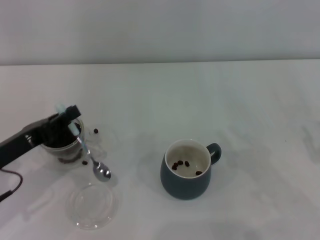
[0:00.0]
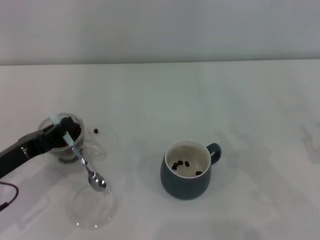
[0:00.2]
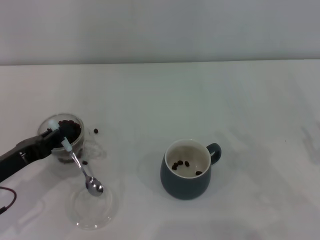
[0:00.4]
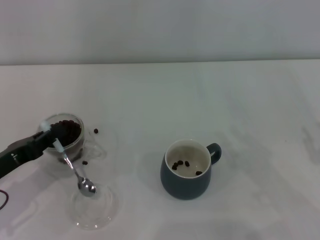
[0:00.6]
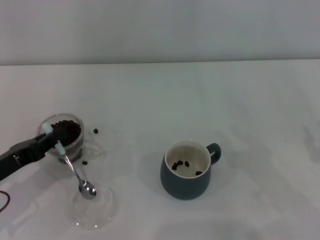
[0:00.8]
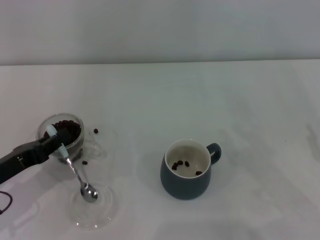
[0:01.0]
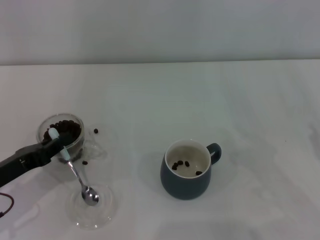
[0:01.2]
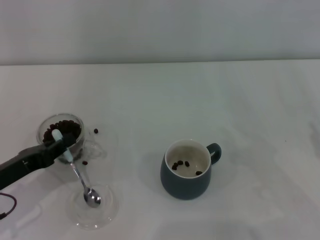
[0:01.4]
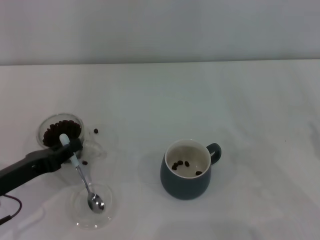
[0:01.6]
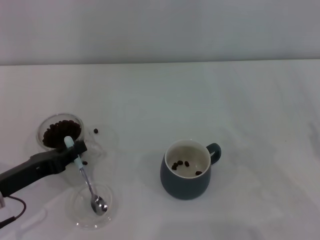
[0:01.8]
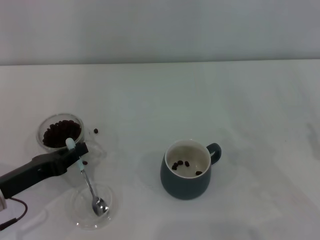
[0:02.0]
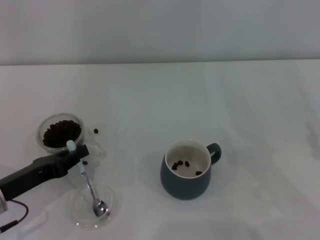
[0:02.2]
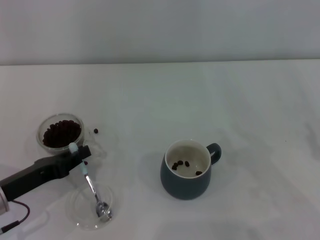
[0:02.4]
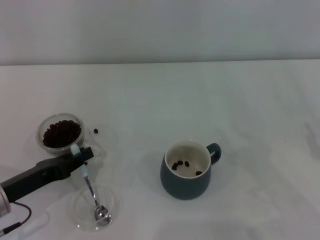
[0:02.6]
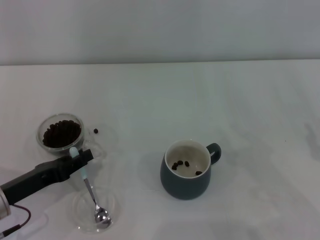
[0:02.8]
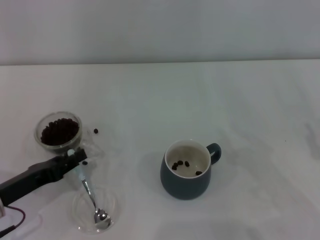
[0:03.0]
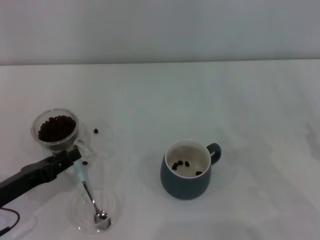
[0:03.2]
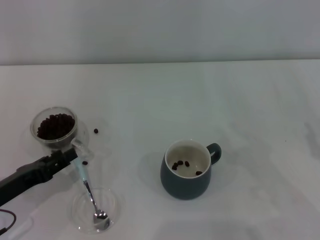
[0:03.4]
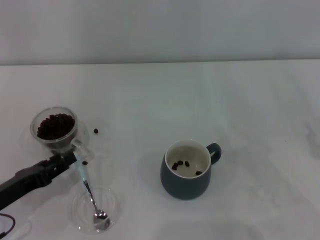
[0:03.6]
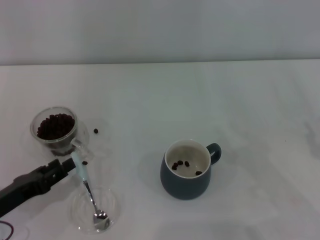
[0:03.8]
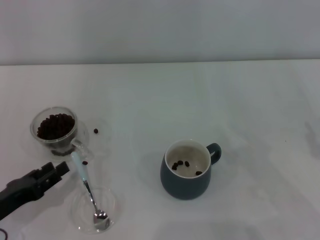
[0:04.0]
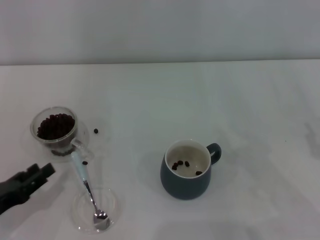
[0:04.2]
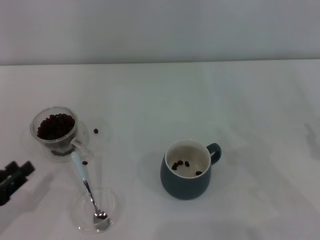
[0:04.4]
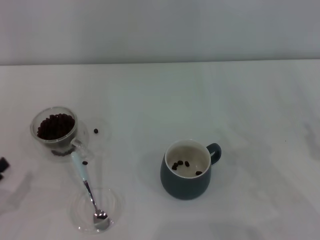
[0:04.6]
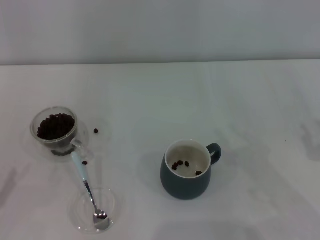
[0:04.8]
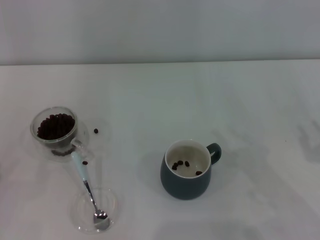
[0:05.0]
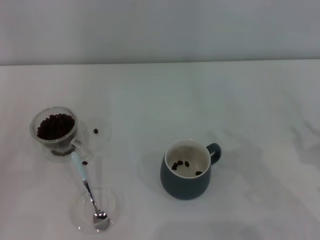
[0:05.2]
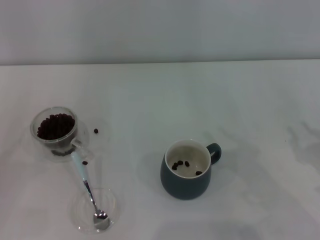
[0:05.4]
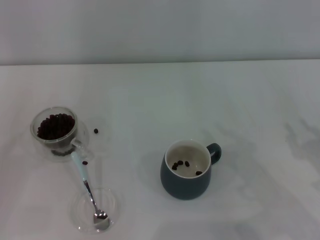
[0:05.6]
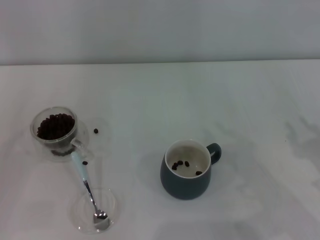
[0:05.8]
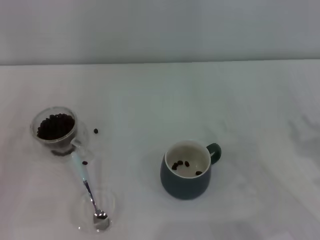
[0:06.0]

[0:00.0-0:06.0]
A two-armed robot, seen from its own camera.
Task of the whole recording: Use a blue spoon to take out the coffee beans from the glass and pour them into the gray cup.
Step, 0:00.0 to 0:03.8: Place the spoon back in its original place with the right gripper.
0:00.0 to 0:03.0: The grippers stay close to where they were, moving slightly.
0:03.0 to 0:04.4: The left gripper is displaced backward and to the left by roughly 10 cm.
0:04.4 to 0:06.0: The left gripper goes approximately 5 cm to the left.
